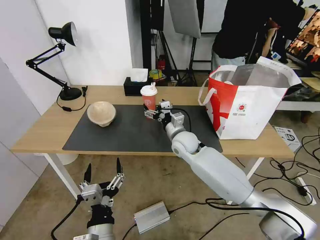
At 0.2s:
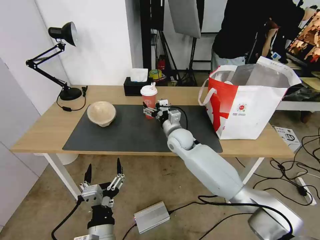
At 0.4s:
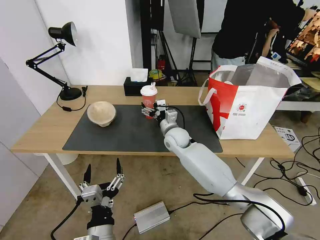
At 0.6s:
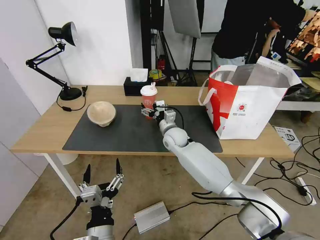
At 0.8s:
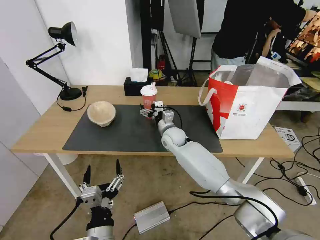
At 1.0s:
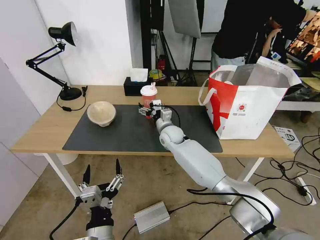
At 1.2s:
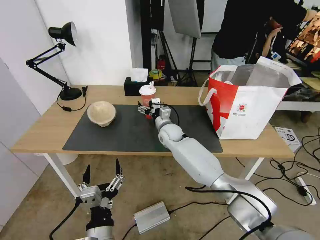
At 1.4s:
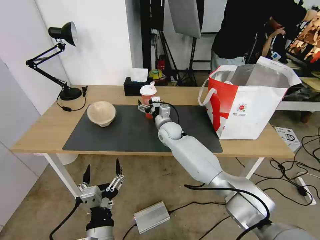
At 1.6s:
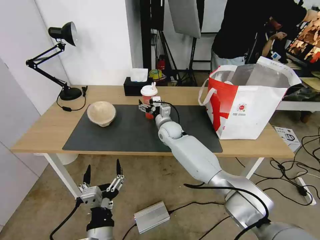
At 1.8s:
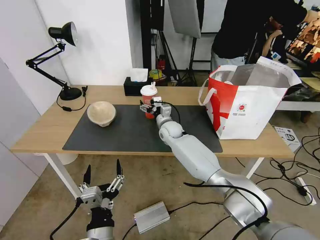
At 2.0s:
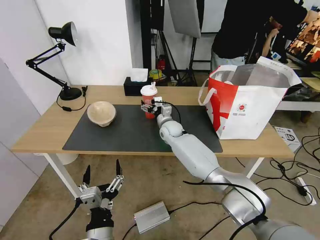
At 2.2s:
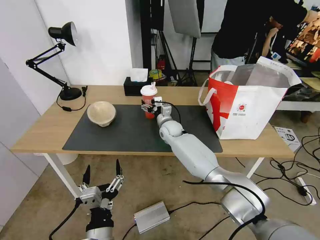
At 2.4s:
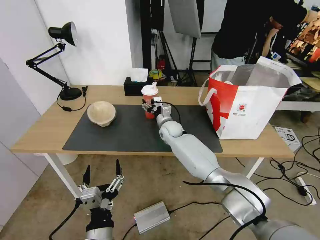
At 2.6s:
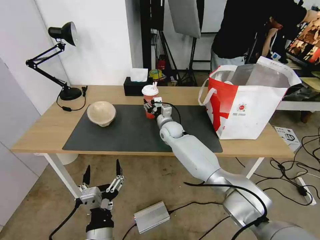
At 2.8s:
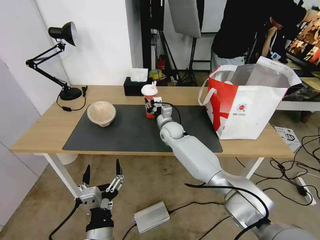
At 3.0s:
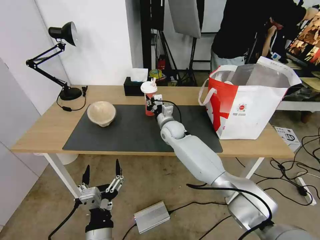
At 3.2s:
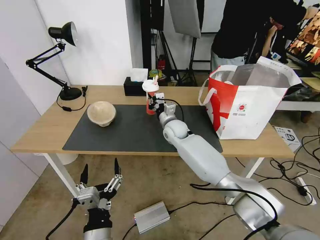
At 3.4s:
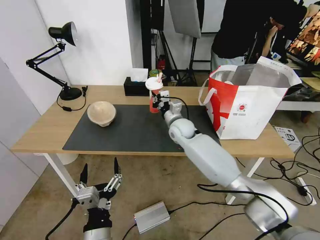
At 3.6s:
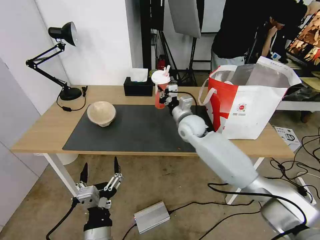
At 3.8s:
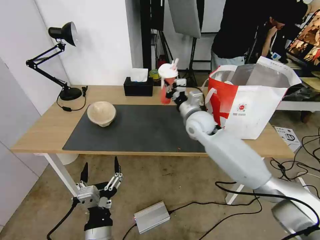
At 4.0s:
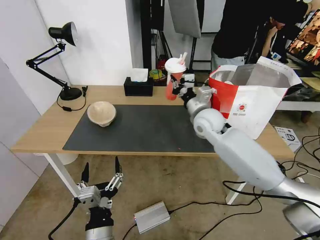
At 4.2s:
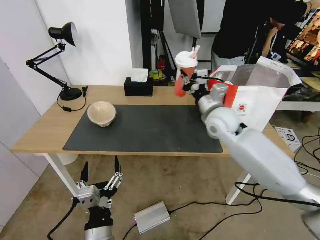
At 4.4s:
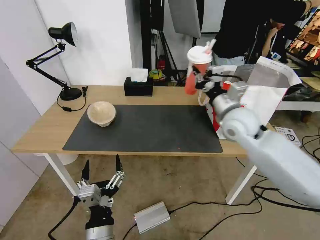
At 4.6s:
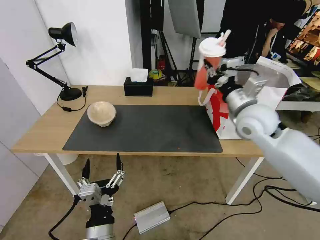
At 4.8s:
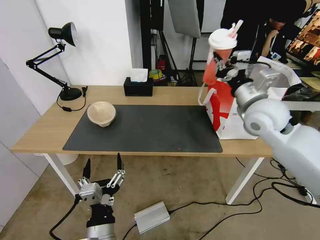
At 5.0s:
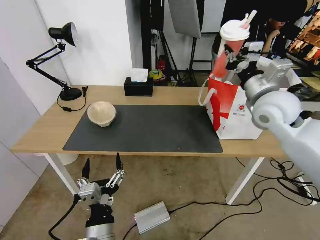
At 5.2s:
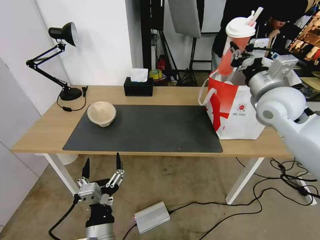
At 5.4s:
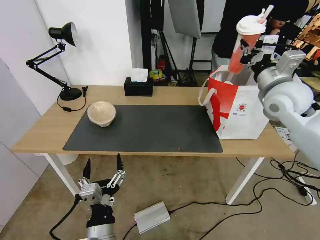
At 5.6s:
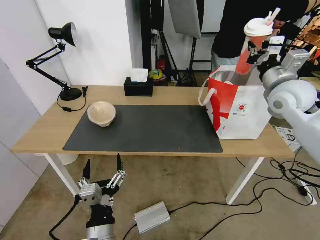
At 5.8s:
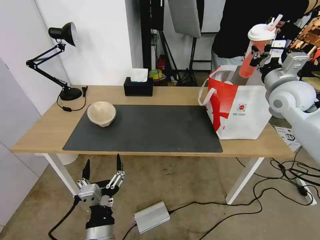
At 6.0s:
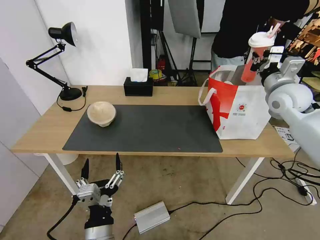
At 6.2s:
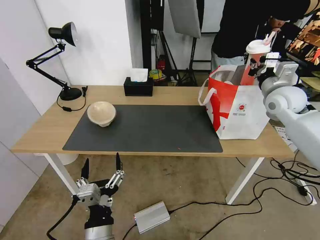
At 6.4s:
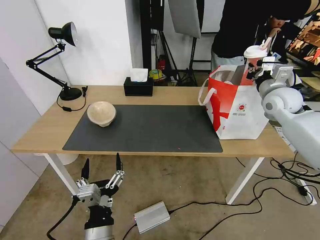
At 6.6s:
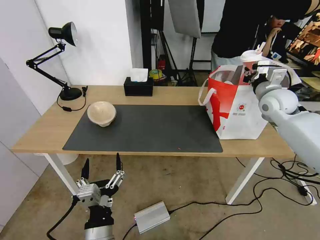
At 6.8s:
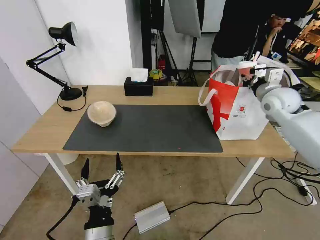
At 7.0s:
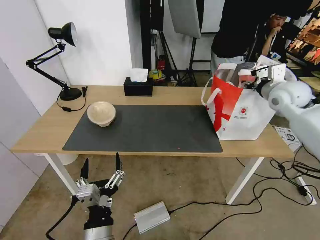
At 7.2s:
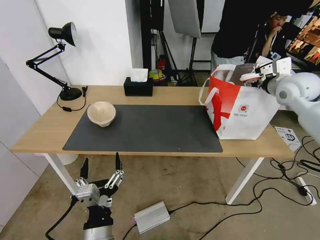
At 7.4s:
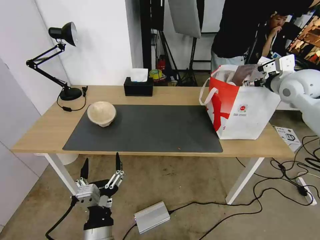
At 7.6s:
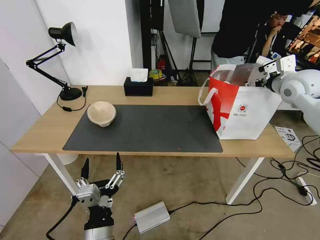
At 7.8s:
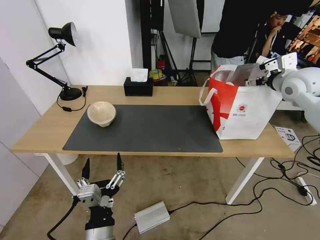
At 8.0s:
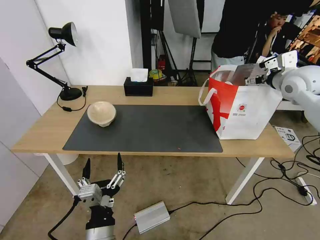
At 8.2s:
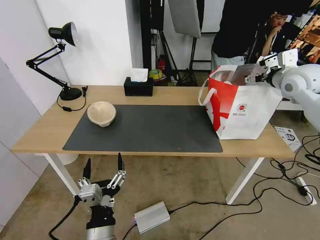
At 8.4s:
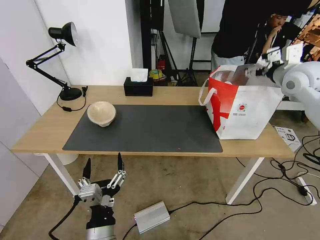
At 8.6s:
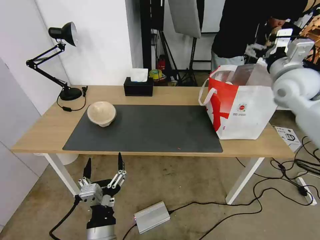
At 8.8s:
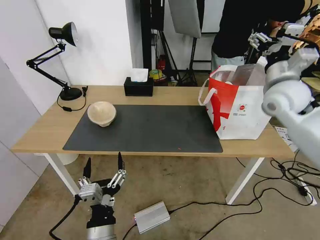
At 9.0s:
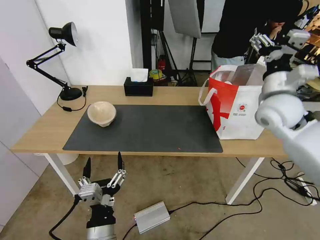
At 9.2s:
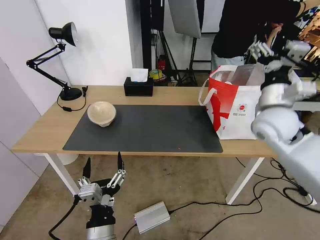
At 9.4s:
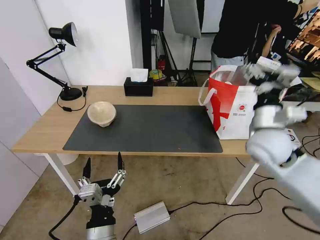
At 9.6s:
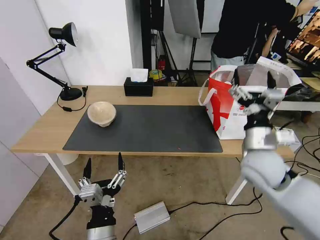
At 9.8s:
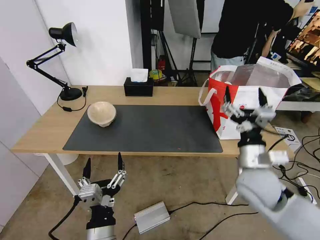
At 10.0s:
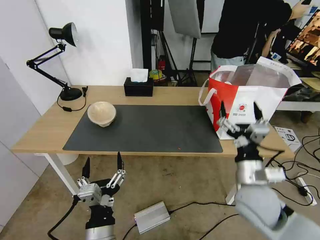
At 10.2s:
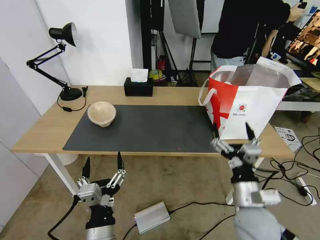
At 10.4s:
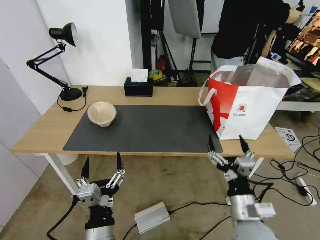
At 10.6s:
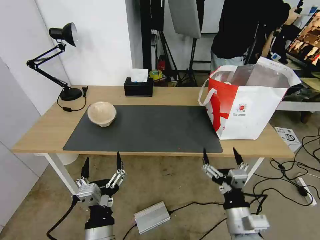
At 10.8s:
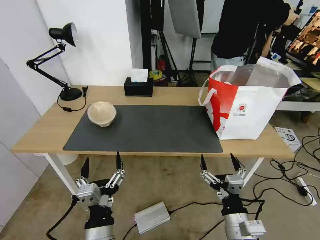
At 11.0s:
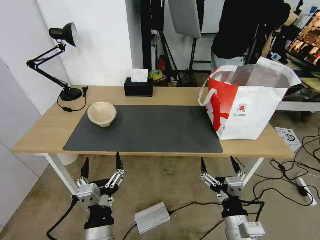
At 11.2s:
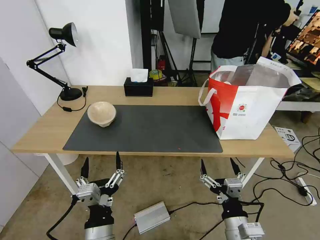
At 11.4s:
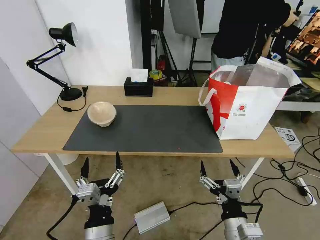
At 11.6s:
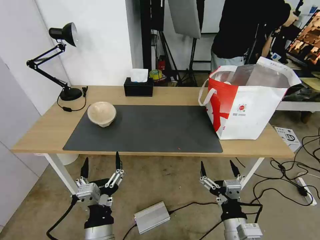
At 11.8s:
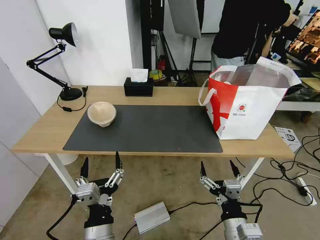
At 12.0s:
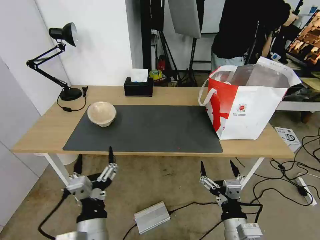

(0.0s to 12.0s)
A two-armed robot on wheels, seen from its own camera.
Task of the whole recording: Pick up the trash from the table and place it into the takeout bag.
0.0s - 1.6s: The right gripper is displaced forward by some 10 cm.
1.6s - 3.0s: The right gripper closes.
3.0s - 4.4s: The right gripper is displaced to the right, upward and backward by about 25 cm.
4.4s - 6.0s: The right gripper moves to the right, roughly 15 cm.
6.0s - 7.6s: The right gripper changes place by roughly 5 cm, and opens.
7.6s - 9.0s: The right gripper is displaced to the left and backward by approximately 10 cm.
9.0s - 10.4s: The right gripper goes about 35 cm backward and downward.
10.4s - 12.0s: The right gripper changes place by roughly 5 cm.

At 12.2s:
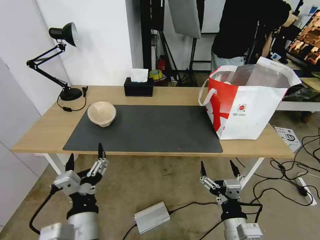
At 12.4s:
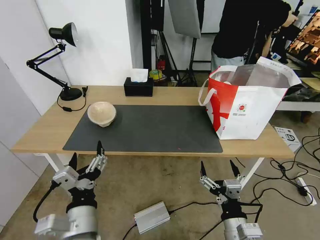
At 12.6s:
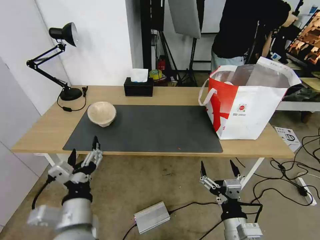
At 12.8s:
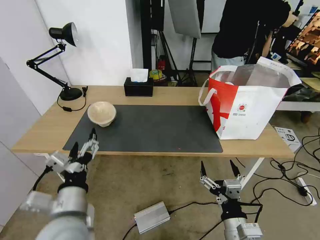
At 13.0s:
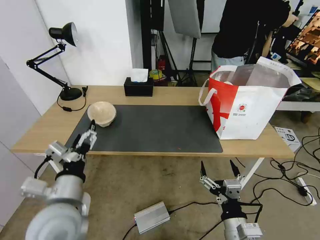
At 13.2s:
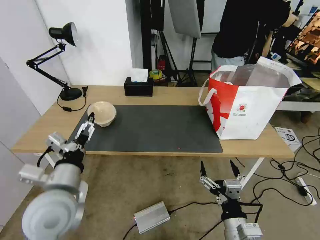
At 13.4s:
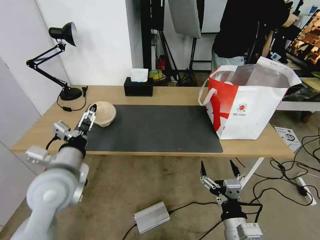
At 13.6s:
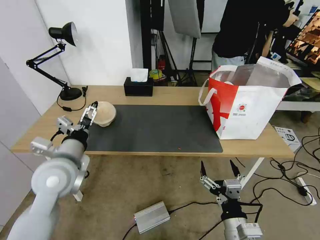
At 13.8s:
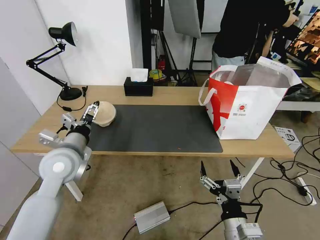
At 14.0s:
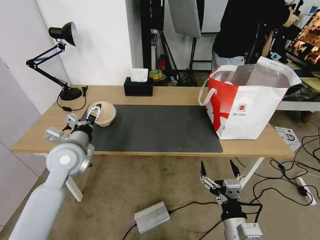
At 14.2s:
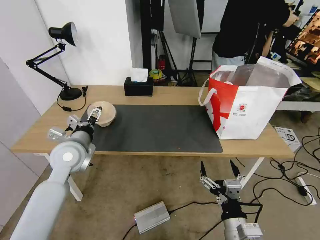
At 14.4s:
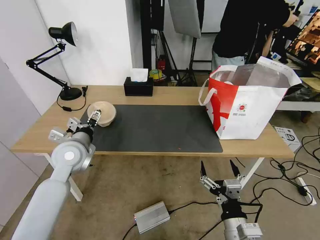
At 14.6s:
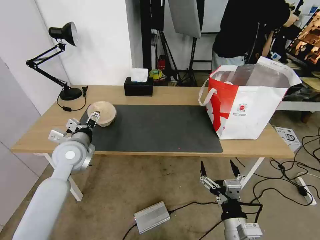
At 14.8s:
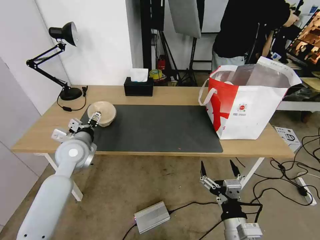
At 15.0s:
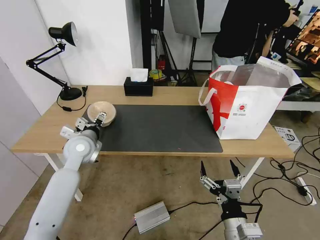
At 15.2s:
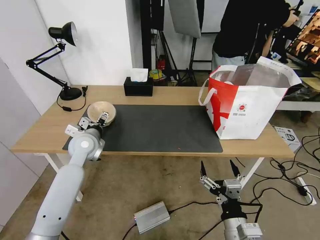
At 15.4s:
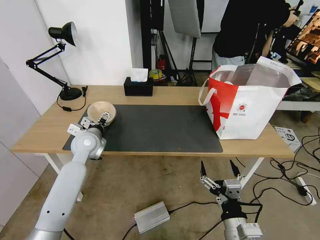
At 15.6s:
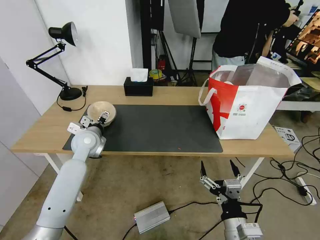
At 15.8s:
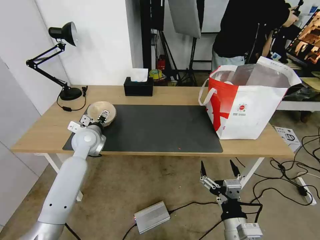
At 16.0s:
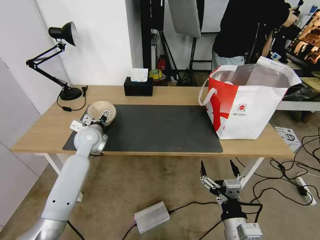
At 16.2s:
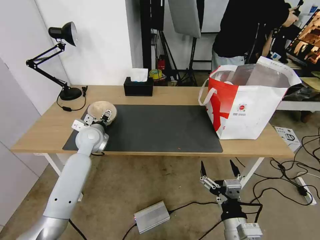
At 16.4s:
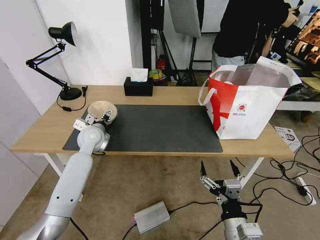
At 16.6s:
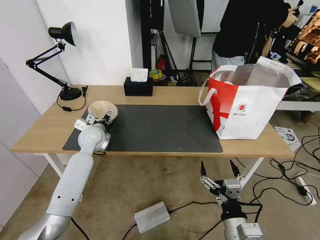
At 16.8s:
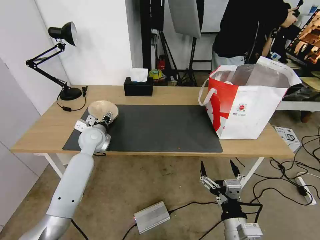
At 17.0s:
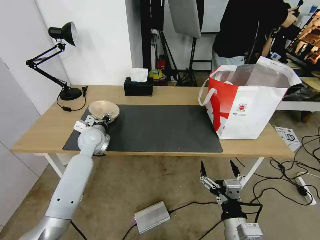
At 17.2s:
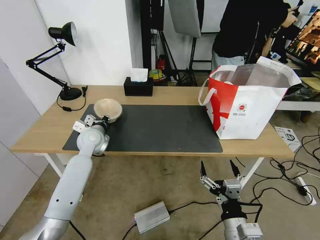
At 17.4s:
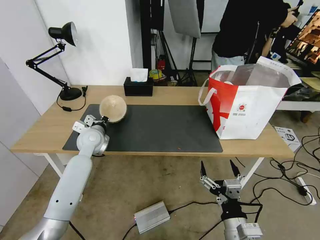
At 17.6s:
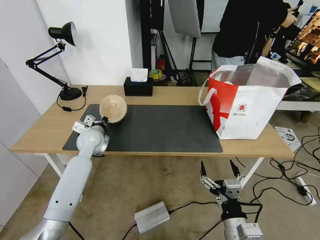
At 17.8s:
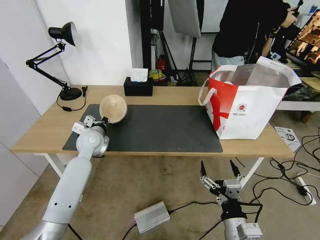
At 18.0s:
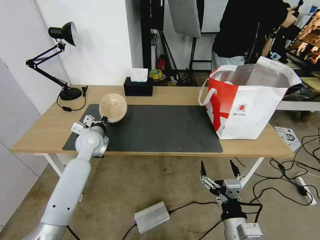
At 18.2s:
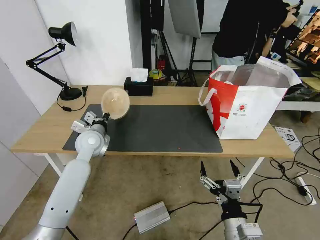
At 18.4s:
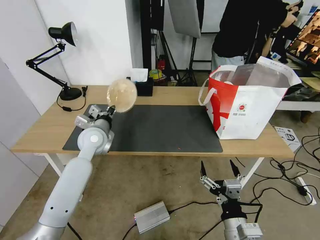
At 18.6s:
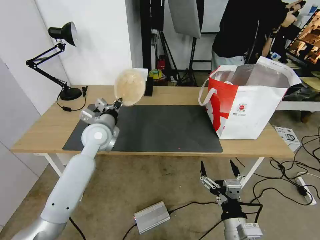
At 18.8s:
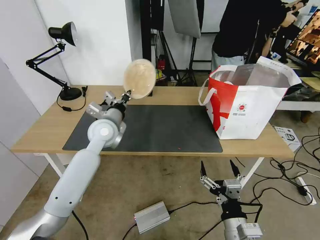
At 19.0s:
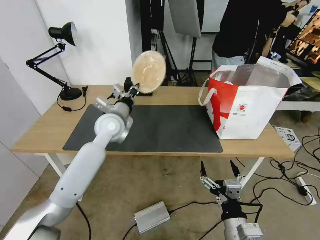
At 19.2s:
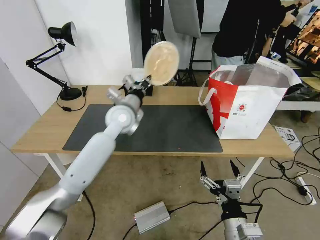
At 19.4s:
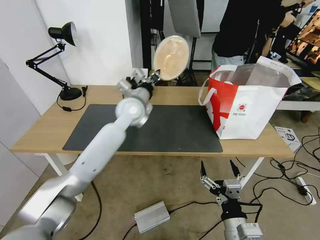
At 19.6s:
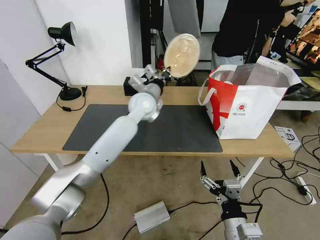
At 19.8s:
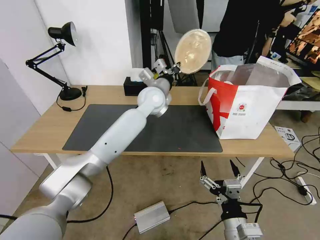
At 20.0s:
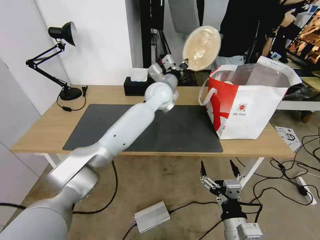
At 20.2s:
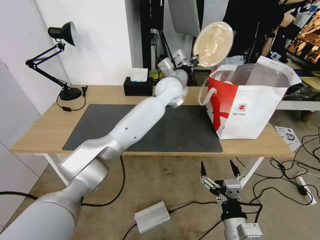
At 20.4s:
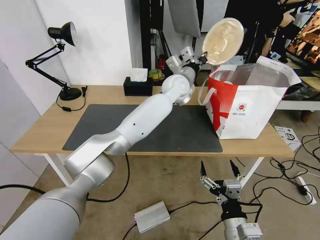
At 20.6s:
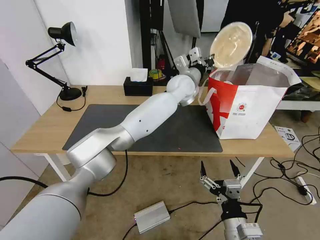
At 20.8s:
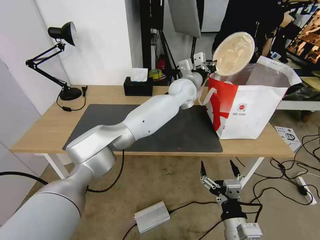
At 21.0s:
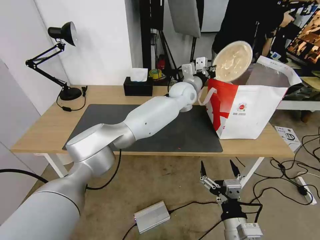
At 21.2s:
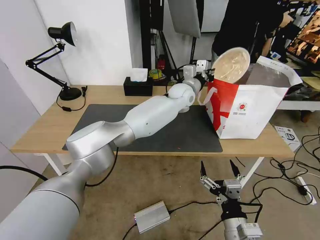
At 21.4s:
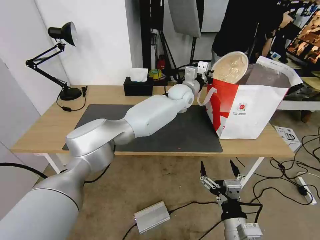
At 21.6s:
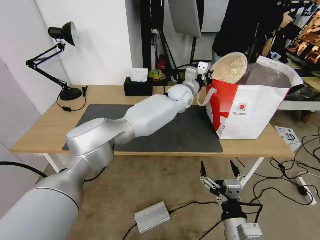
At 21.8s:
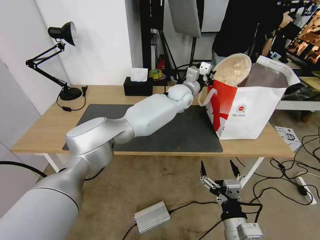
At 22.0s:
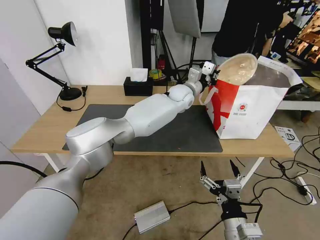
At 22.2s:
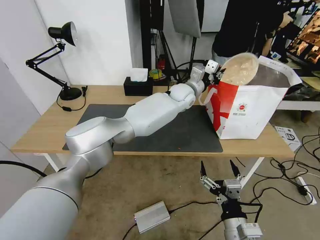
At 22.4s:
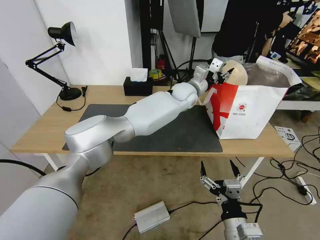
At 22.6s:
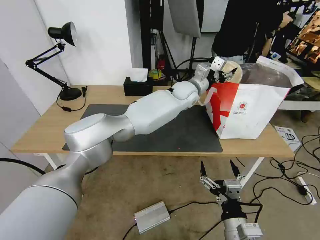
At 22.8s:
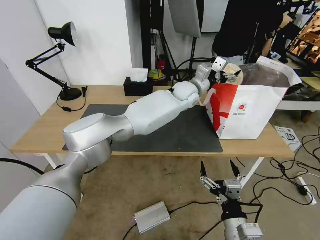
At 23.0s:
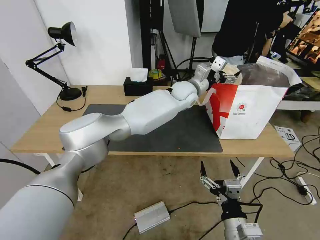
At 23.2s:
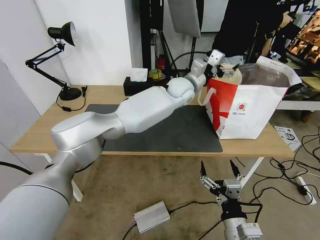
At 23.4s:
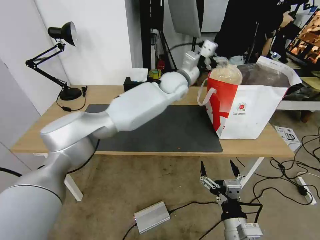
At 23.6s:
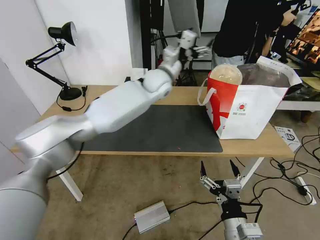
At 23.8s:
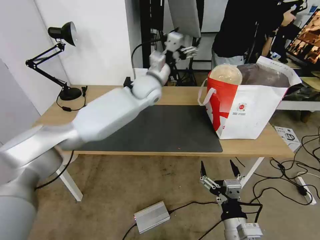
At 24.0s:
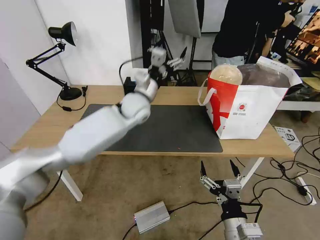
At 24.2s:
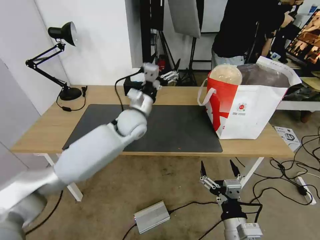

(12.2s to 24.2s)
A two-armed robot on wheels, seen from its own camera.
Task of the whole recording: Pick up the trash from the table and place it into the takeout bag.
12.2s - 13.8s: The left gripper shifts some 25 cm forward and to the left.
13.8s - 15.2s: The left gripper shifts approximately 10 cm forward and downward.
15.2s - 16.6s: The left gripper shifts by roughly 5 cm.
16.6s - 18.2s: The left gripper closes its fingers.
18.2s - 19.8s: The left gripper is displaced to the right, upward and forward by roughly 25 cm.
19.8s - 21.2s: The left gripper goes approximately 10 cm to the right and forward.
21.2s - 22.6s: The left gripper opens up.
22.6s - 24.2s: The left gripper is displaced to the left and backward by about 20 cm, and opens its fingers.
